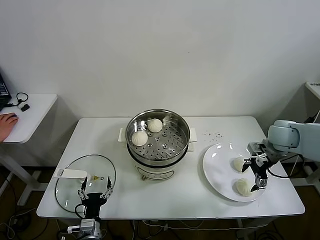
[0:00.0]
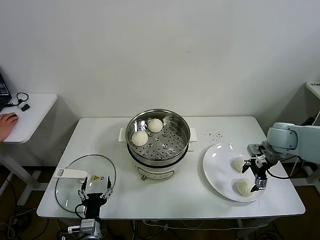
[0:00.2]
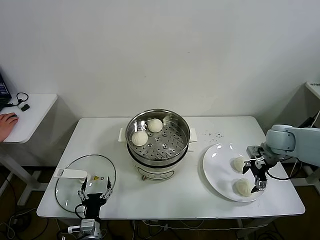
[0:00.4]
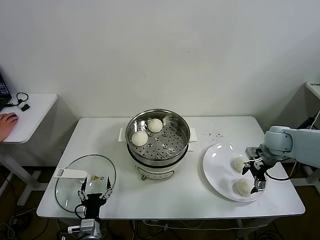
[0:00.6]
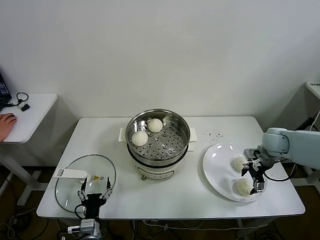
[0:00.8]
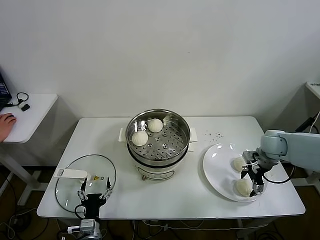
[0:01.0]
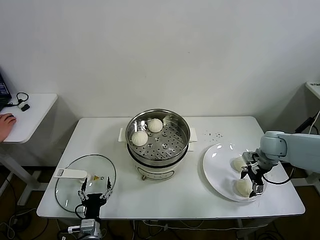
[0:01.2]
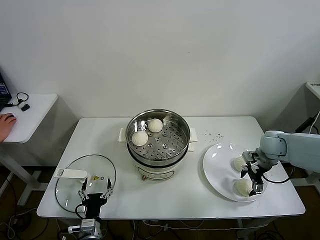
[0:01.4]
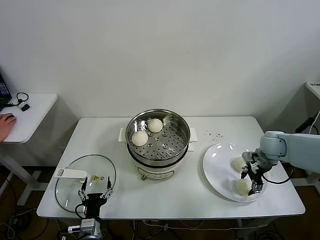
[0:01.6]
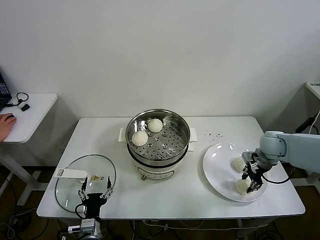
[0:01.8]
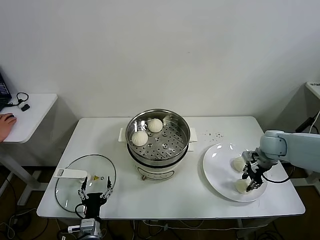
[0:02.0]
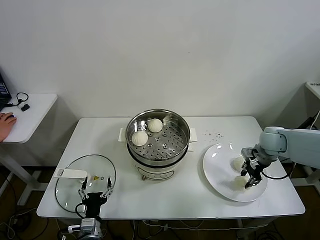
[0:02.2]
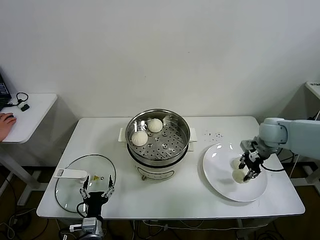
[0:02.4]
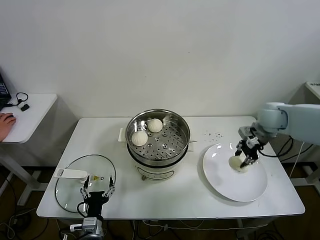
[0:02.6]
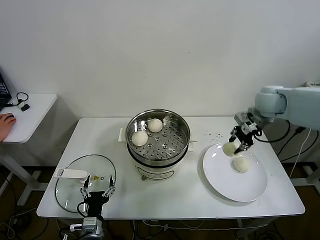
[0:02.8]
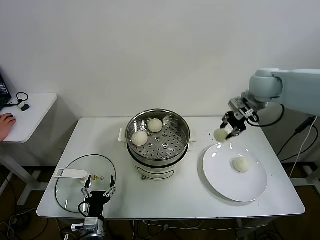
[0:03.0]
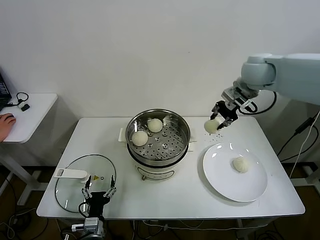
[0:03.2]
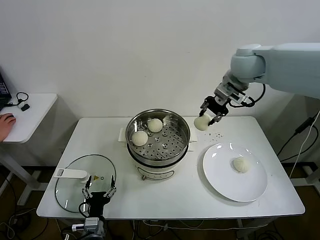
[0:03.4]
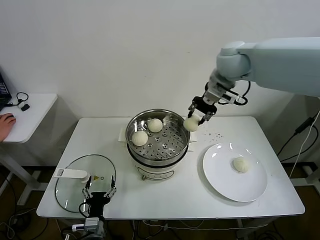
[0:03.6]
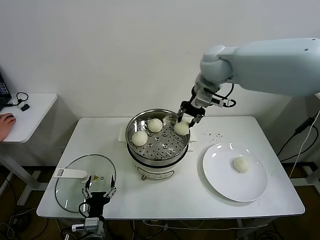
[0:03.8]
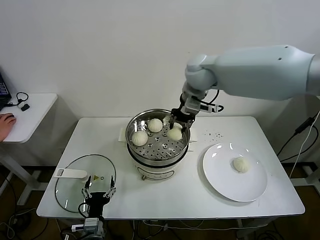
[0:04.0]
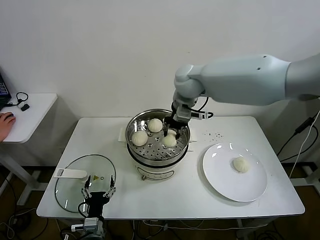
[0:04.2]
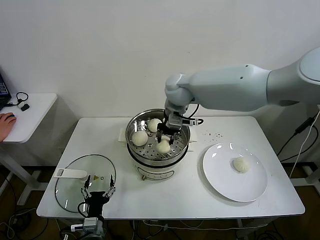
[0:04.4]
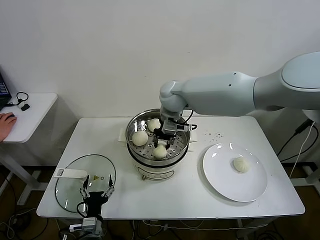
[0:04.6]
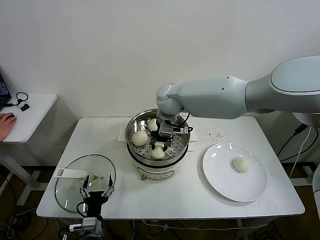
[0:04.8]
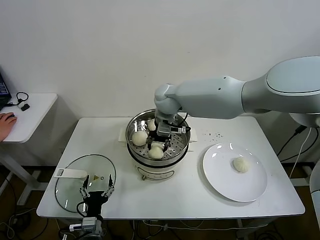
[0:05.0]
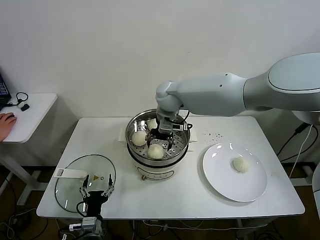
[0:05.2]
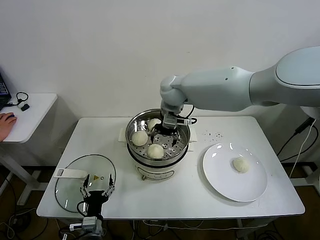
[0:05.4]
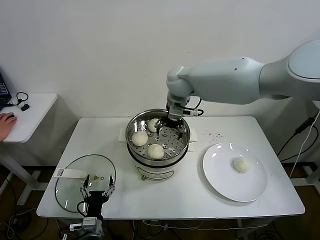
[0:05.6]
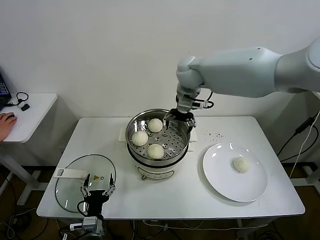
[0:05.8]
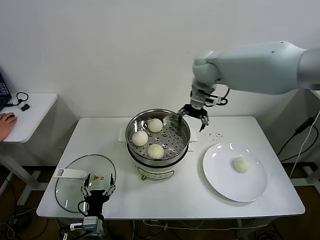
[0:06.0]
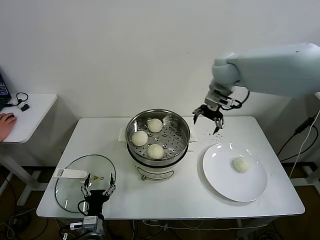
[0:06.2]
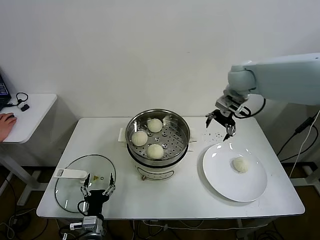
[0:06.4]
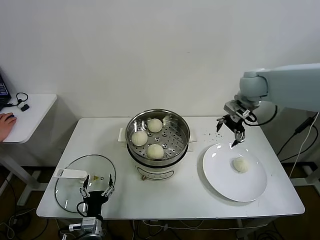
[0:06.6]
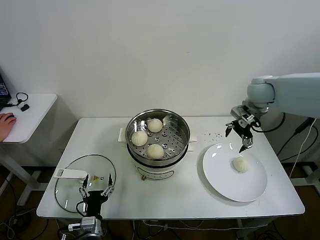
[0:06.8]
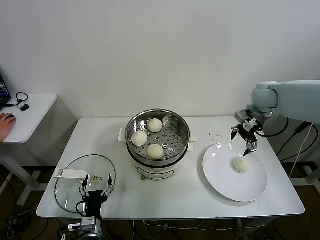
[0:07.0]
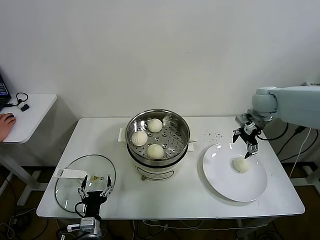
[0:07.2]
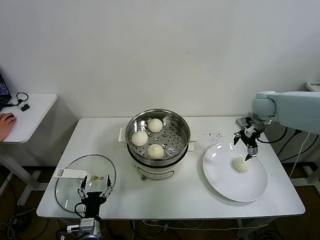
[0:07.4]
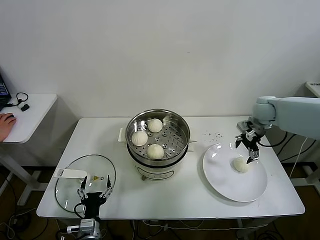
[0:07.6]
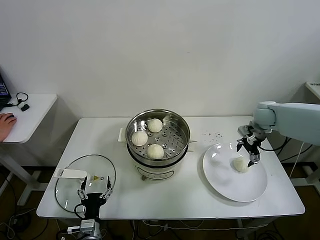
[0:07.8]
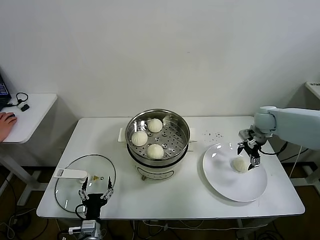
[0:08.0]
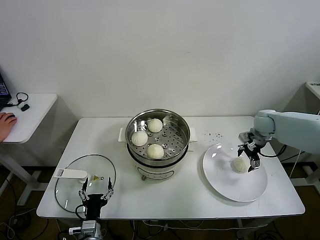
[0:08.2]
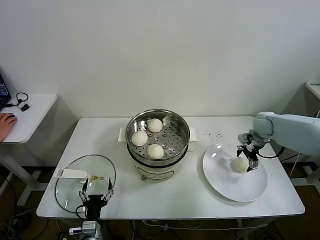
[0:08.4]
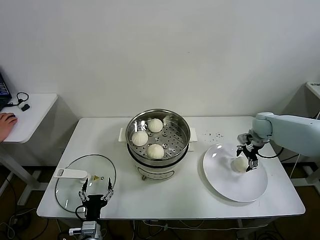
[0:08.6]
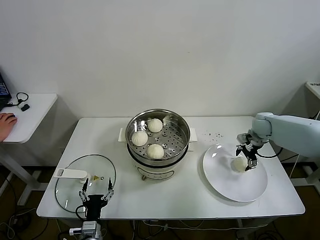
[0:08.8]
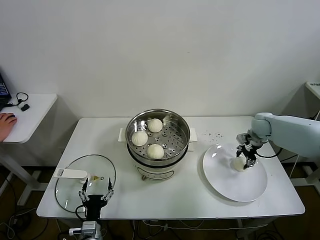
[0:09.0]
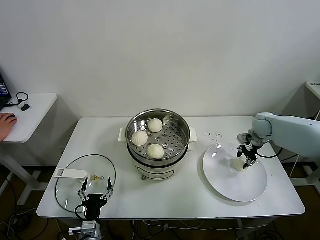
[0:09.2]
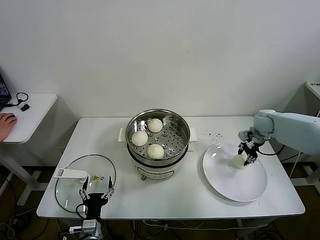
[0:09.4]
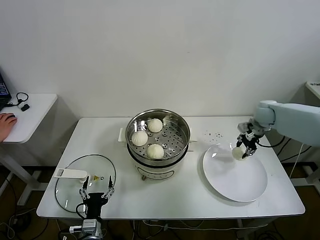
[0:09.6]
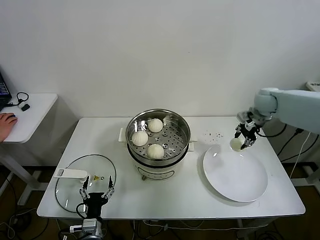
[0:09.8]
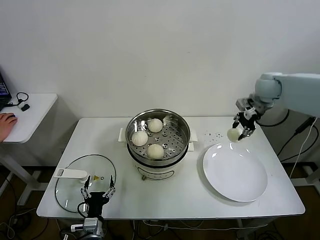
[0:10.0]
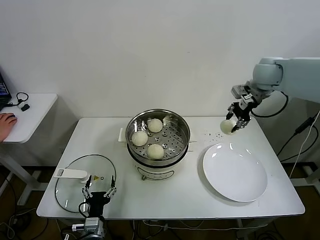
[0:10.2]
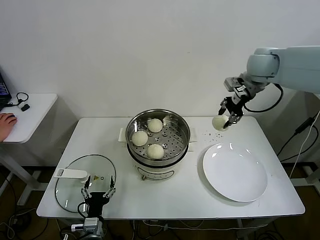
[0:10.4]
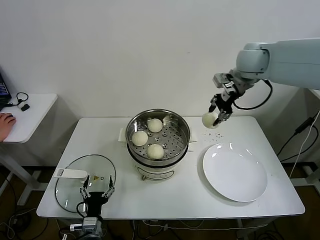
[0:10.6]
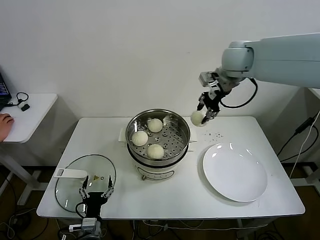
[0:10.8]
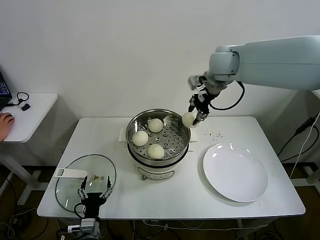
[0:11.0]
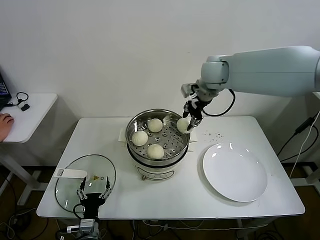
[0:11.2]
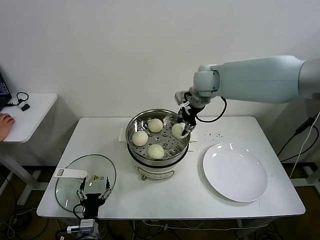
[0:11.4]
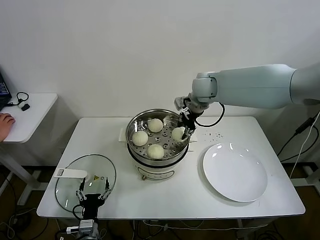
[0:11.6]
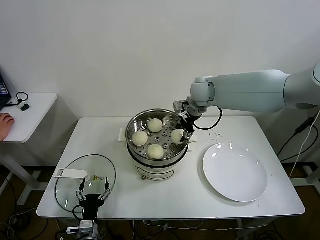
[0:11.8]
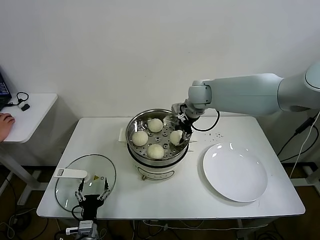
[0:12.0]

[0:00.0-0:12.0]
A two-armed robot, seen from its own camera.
Task of the whole recording: take steamed baozi put them in steamer.
Step, 0:02.0 to 0:05.0: Place the baozi on the steamer with right gripper.
Step, 0:05.4 to 0:09.2: Grasp the baozi in the plate with right gripper.
0:00.0 to 0:01.6: The right gripper heads downward, covering roughly 5 cm.
0:01.6 to 0:03.0: The right gripper goes some 25 cm upward and to the left, and closes its fingers.
0:03.0 to 0:04.4: The right gripper goes approximately 25 cm to the left.
0:04.4 to 0:06.0: The right gripper moves to the right and upward, roughly 10 cm, and opens its fingers.
0:06.0 to 0:07.6: The right gripper goes roughly 30 cm to the right and downward.
0:07.6 to 0:09.0: The right gripper shifts some 10 cm downward, and closes.
0:09.0 to 0:10.4: The right gripper shifts roughly 30 cm upward and to the left, and closes up.
0:10.4 to 0:12.0: The right gripper travels to the left and downward by roughly 20 cm.

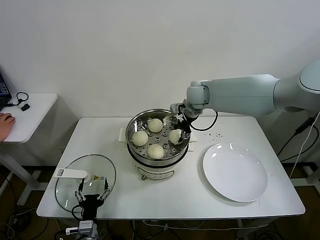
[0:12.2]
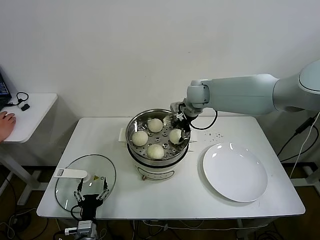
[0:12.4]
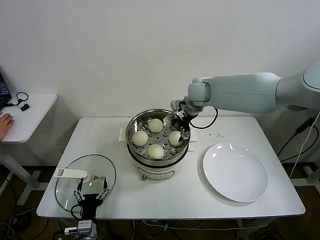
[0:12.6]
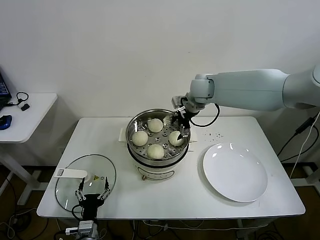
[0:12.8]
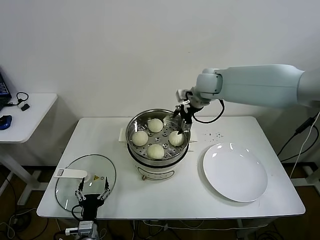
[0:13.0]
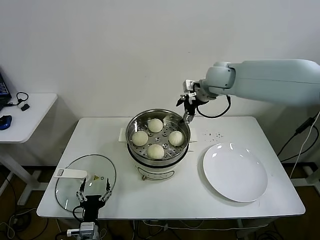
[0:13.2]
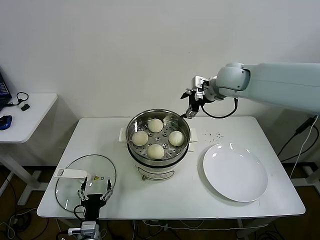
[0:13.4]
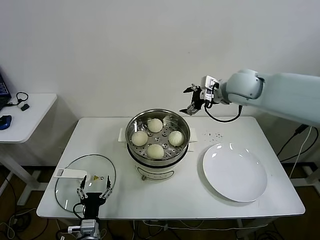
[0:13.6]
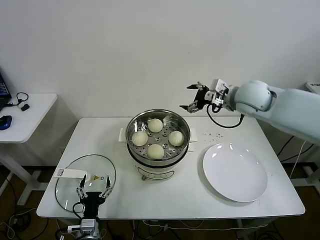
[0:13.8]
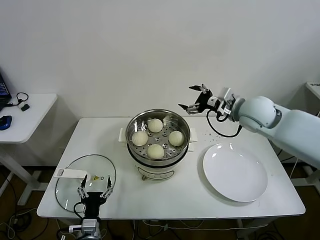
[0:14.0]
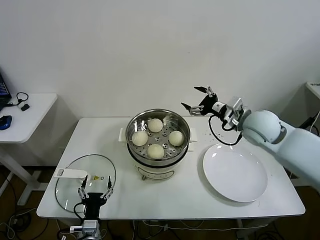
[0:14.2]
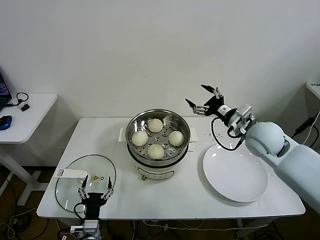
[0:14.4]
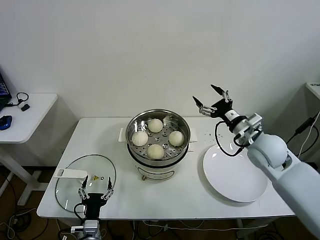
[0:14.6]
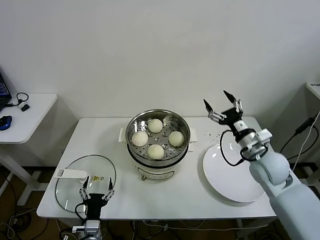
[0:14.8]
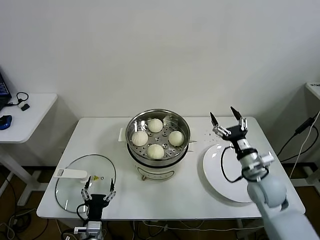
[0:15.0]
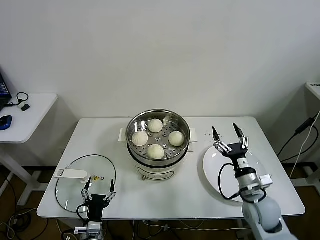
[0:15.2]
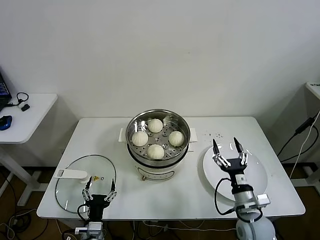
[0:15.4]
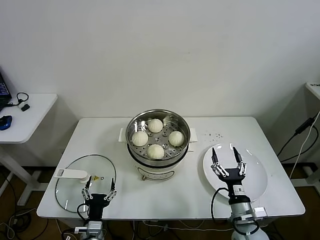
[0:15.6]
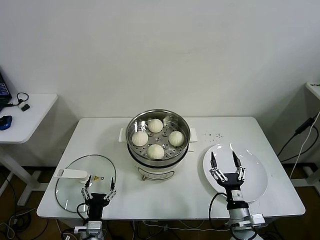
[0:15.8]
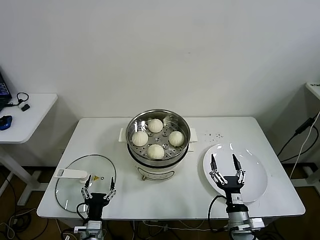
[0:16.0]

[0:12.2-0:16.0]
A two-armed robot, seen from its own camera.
Task of the whole recording: take steamed baozi put them in steamer.
0:12.2 to 0:13.4: The right gripper shifts some 10 cm upward and to the right, and opens.
0:13.4 to 0:14.8: The right gripper travels backward, downward and to the right by some 25 cm.
0:14.8 to 0:16.0: The right gripper is displaced backward and downward by roughly 25 cm.

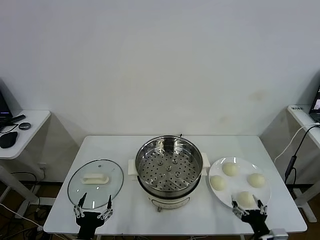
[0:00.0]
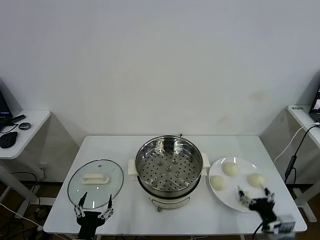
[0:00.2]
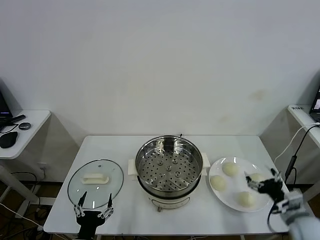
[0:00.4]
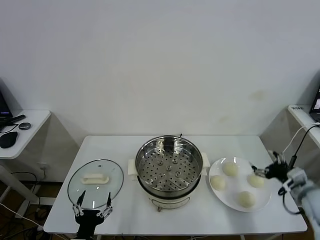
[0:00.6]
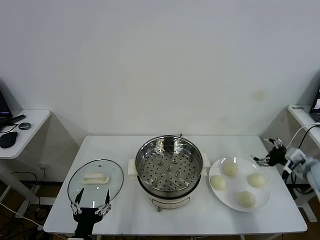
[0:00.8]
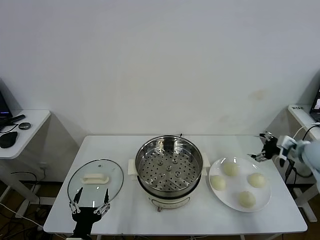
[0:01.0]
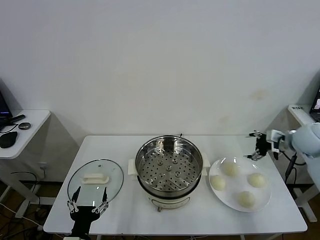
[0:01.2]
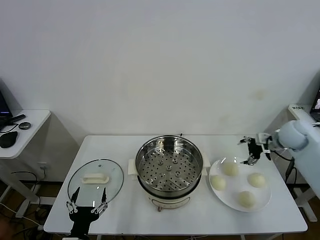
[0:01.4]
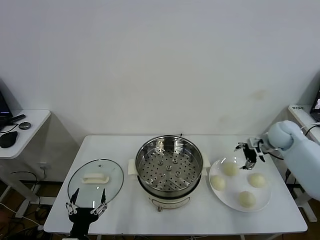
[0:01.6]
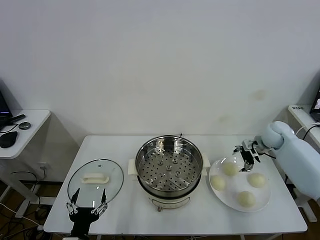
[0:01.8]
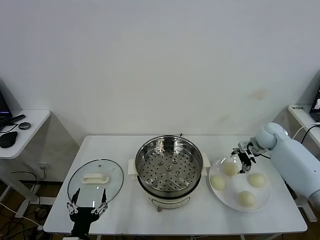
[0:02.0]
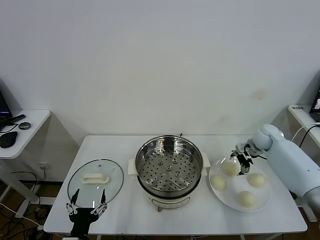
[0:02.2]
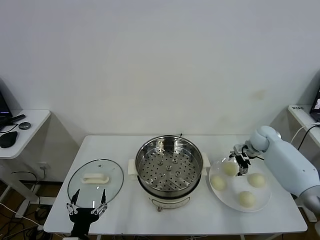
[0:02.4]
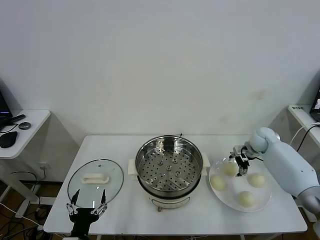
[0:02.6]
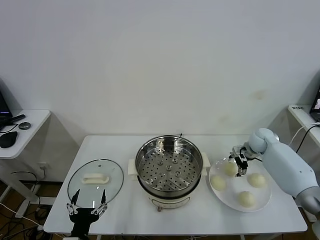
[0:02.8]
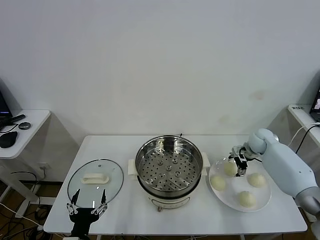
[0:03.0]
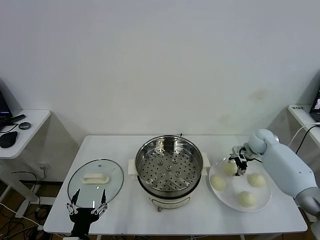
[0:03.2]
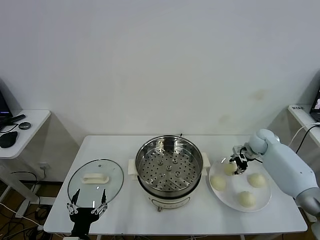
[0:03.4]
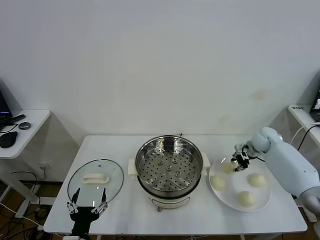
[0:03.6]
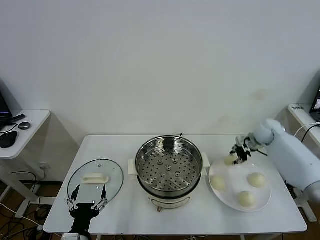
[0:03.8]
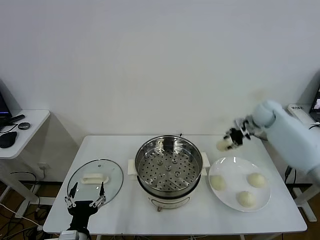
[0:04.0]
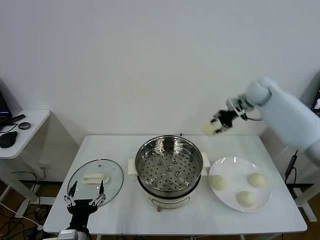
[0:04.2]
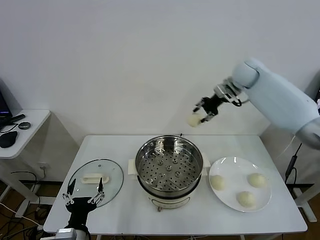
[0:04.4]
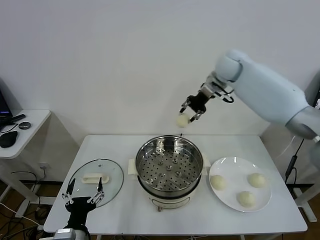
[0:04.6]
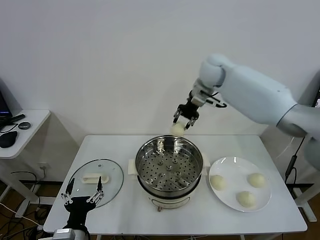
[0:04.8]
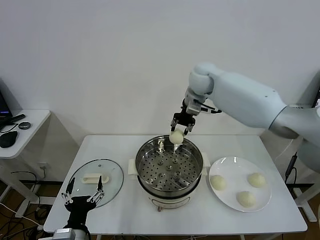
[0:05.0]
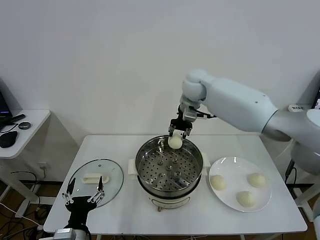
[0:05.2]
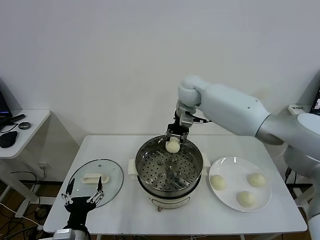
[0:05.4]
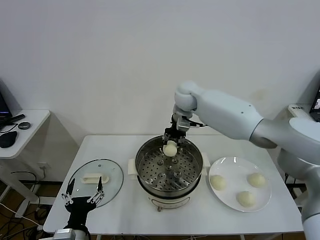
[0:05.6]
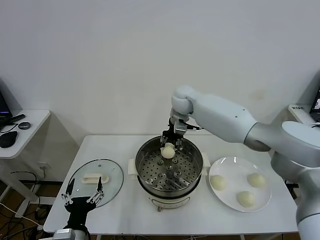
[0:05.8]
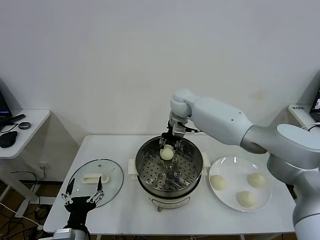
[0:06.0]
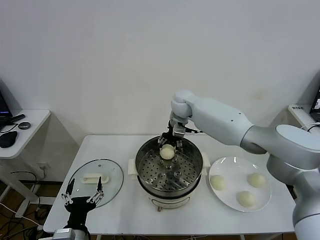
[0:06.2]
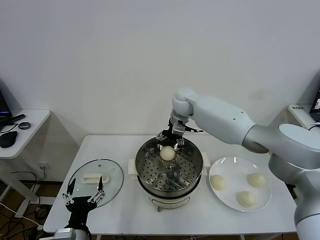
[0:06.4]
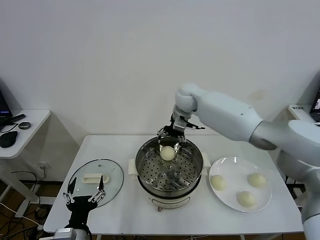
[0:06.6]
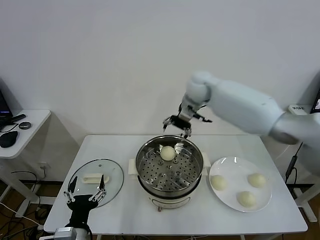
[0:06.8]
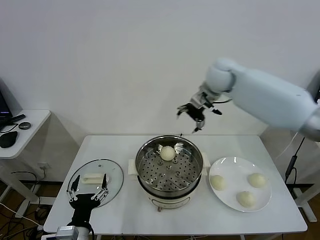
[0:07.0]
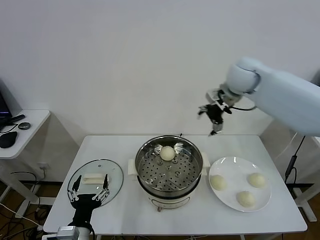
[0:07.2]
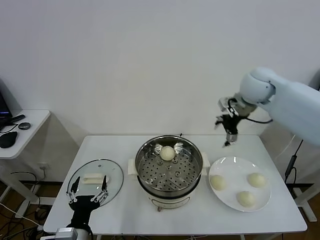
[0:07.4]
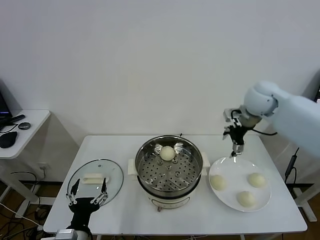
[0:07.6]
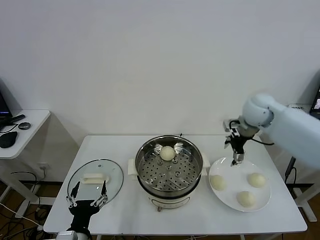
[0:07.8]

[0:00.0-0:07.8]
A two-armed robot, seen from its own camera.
Task of the whole recording: take steamed baozi put them in steamer.
Step, 0:00.0 to 0:03.2: Grasp the baozi in the plate with right gripper.
Step, 0:03.6 to 0:06.6: Place the baozi on the steamer with right gripper.
0:01.6 to 0:03.2: The right gripper is displaced downward by about 10 cm.
0:03.2 to 0:04.6: The right gripper travels upward and to the left by some 35 cm, and closes its fingers.
0:04.6 to 0:06.2: The right gripper goes roughly 20 cm to the left and downward, and opens.
0:06.2 to 0:07.8: The right gripper travels to the right by about 25 cm.
